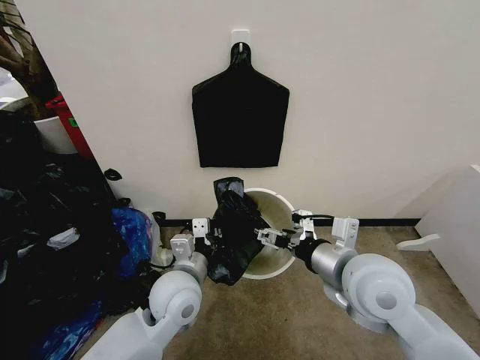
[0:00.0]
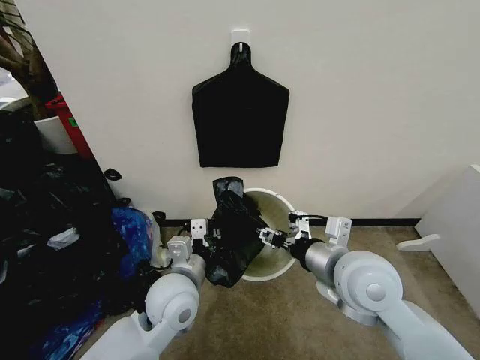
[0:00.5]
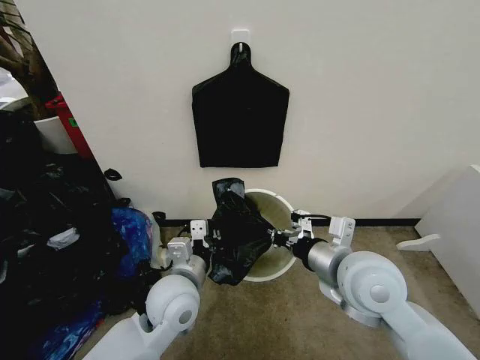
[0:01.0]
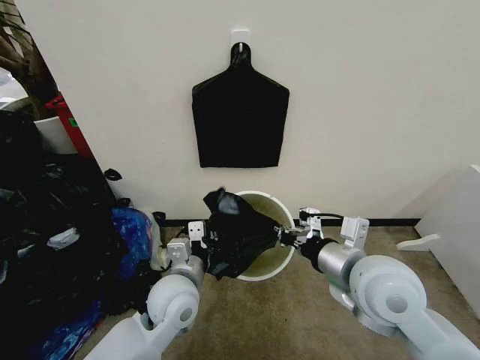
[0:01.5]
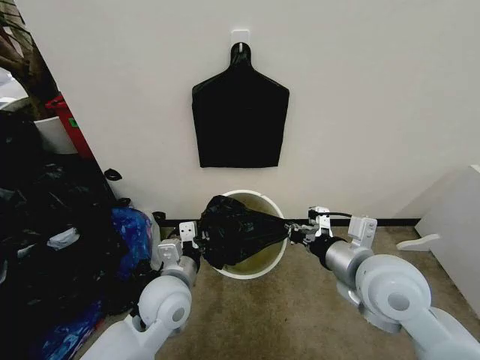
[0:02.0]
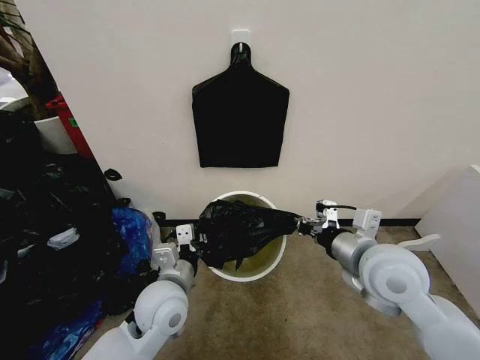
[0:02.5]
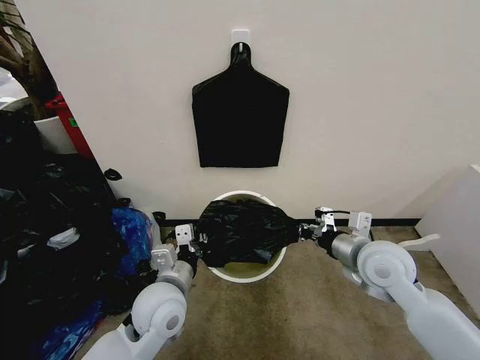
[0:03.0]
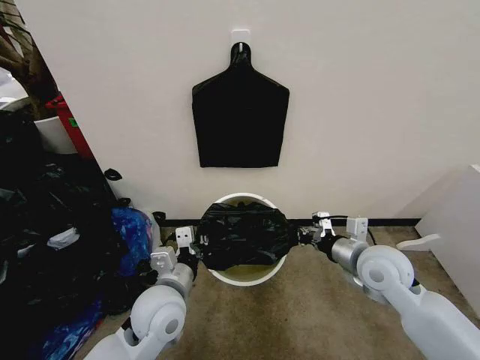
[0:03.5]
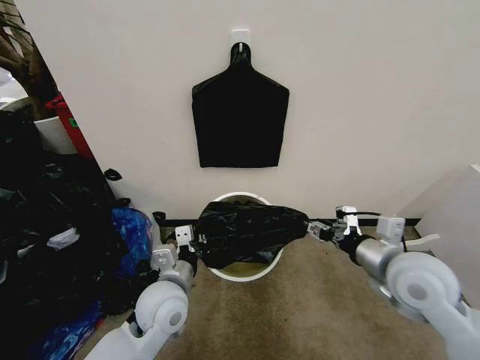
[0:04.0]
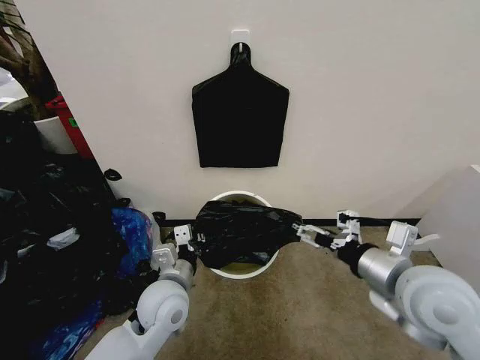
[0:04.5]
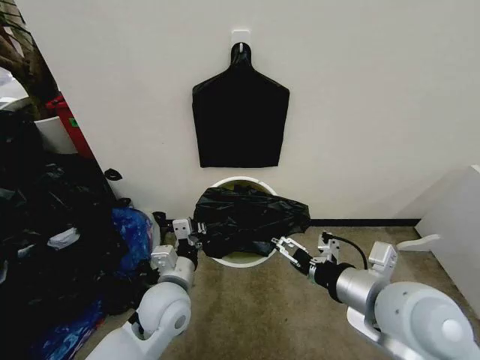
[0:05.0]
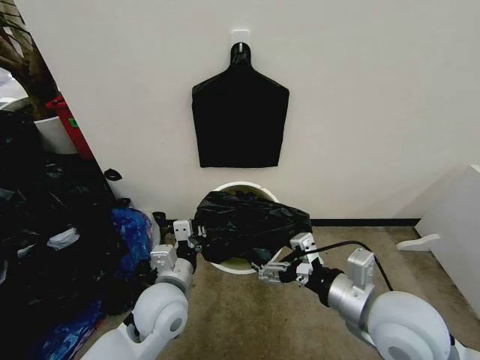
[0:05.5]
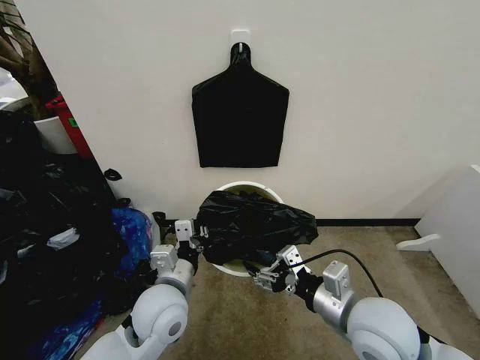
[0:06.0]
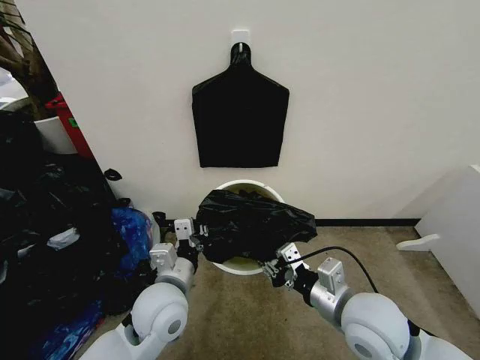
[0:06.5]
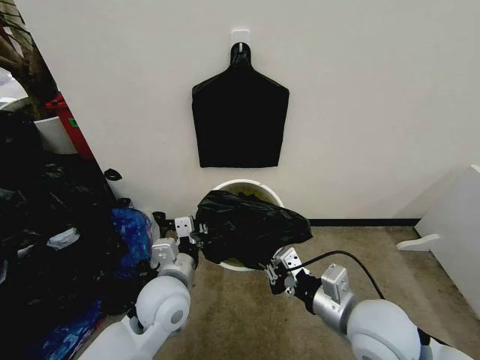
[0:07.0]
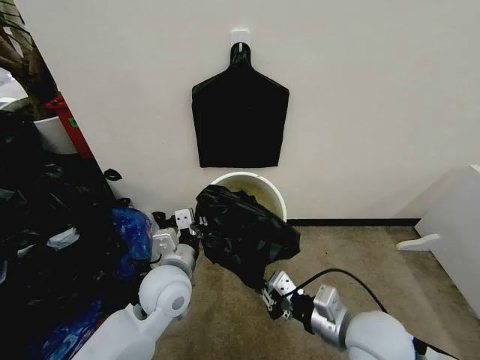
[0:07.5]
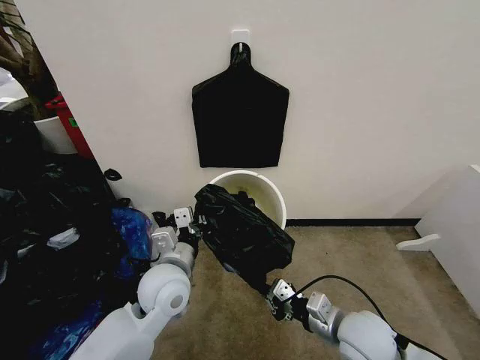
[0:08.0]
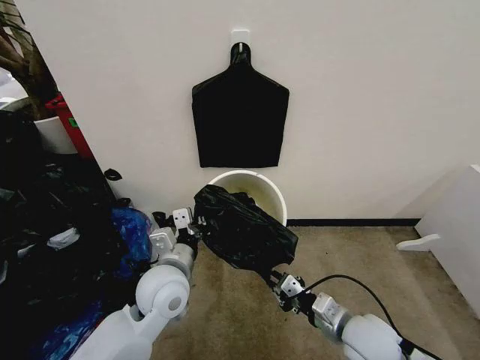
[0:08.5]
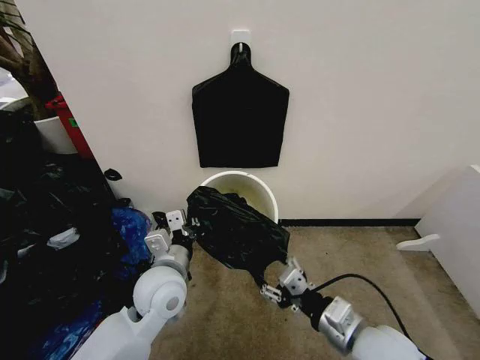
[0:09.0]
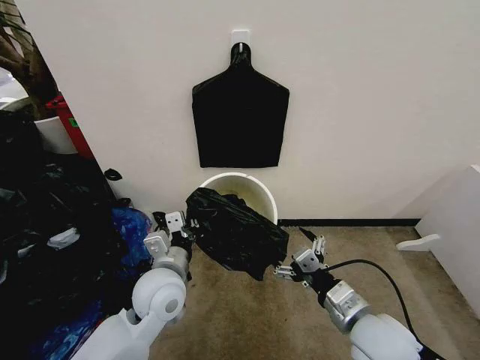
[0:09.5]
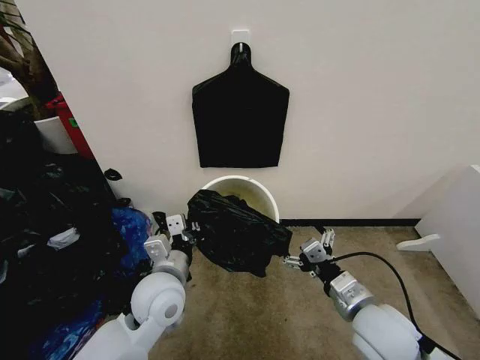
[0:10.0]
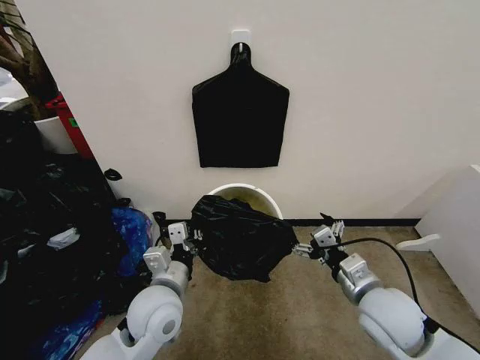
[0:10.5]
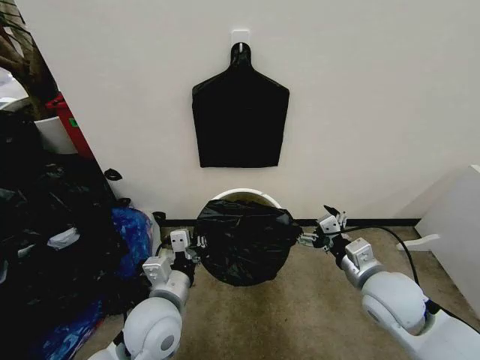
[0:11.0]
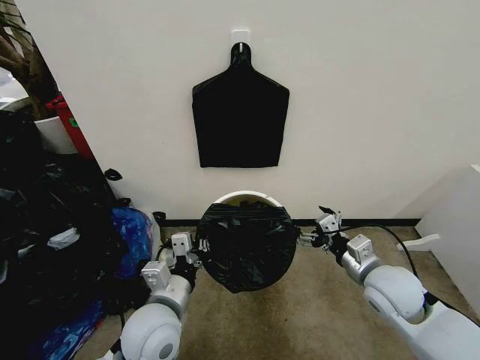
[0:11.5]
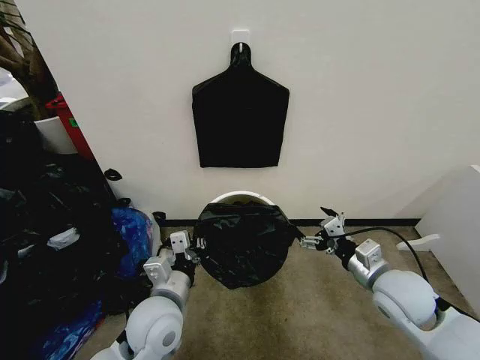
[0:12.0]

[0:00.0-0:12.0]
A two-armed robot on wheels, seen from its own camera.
Task of the whole recording: Place the garbage bag over the trash bin.
0:00.0 to 0:02.0: The right gripper closes.
0:02.0 to 0:04.0: The right gripper moves to the right, approximately 5 cm, goes downward and returns, some 10 cm each way, and opens up.
0:04.0 to 0:06.0: The right gripper is displaced to the left and backward by some 10 cm.
0:06.0 to 0:08.0: The right gripper is displaced downward by roughly 10 cm, and closes.
0:08.0 to 0:10.0: The right gripper opens up.
0:10.0 to 0:12.0: The right gripper moves to the right and forward, about 10 cm.

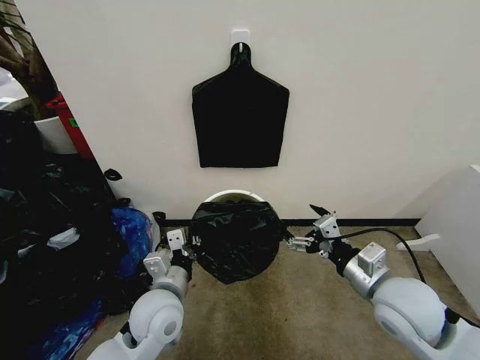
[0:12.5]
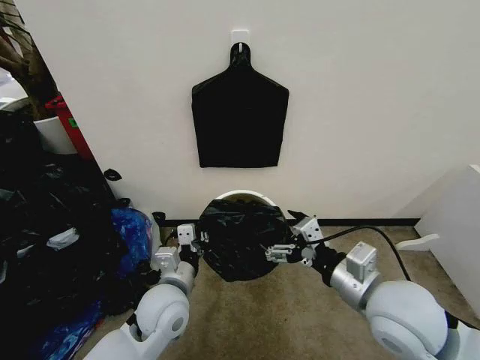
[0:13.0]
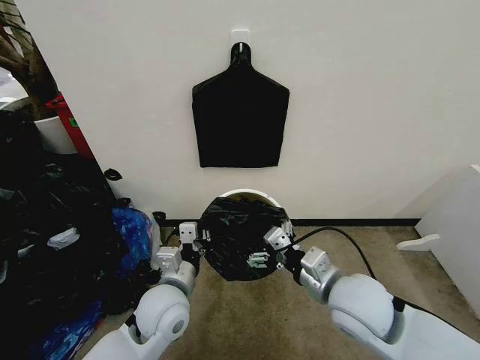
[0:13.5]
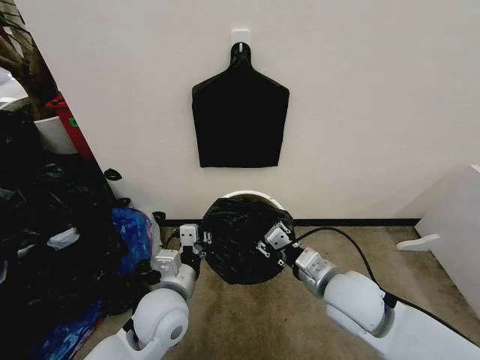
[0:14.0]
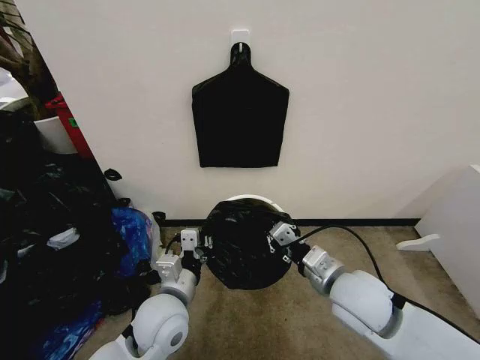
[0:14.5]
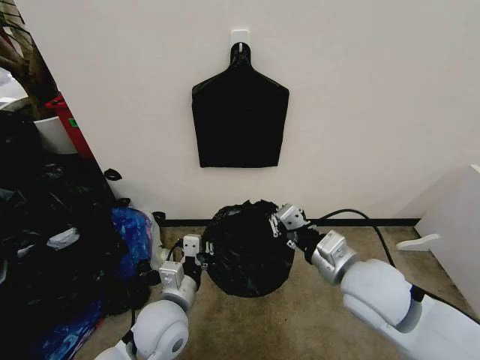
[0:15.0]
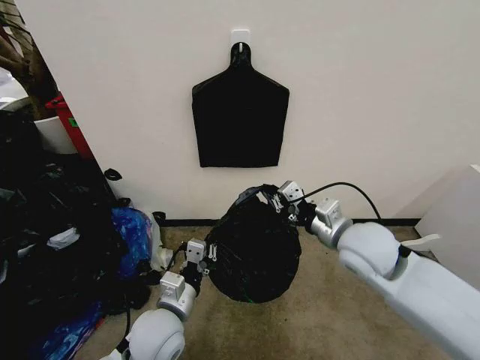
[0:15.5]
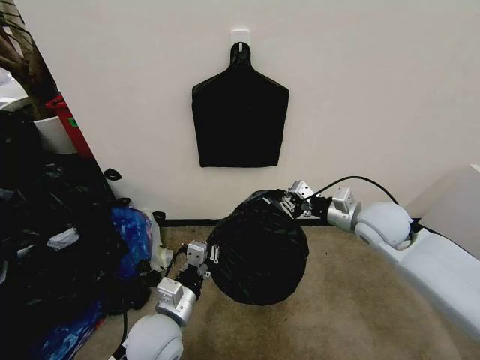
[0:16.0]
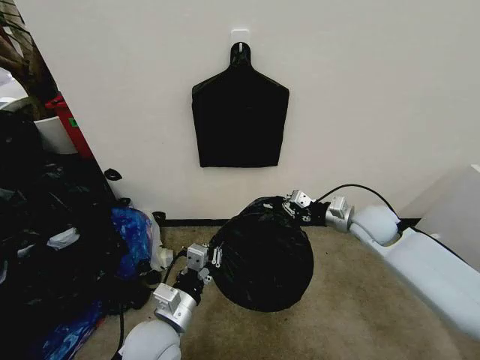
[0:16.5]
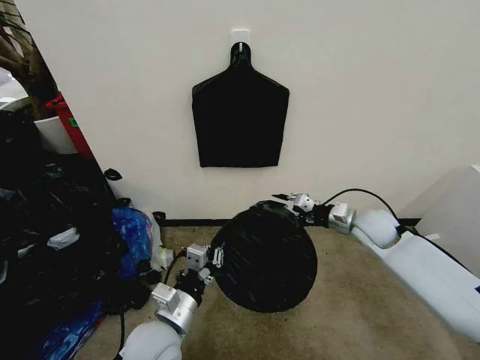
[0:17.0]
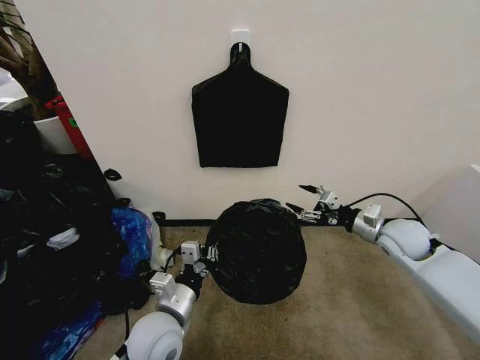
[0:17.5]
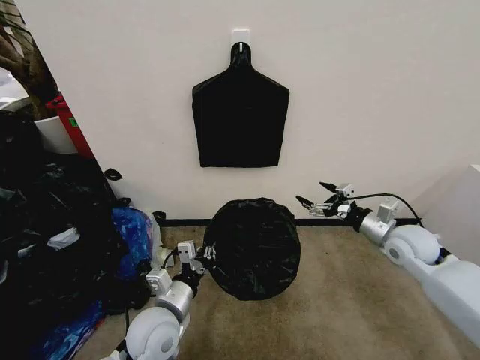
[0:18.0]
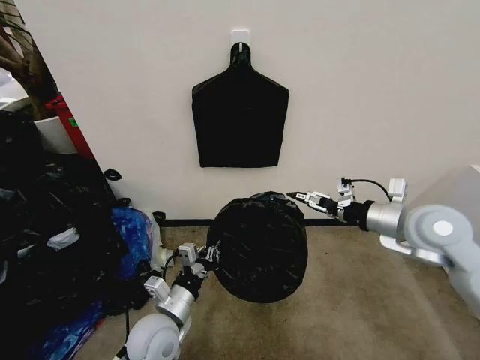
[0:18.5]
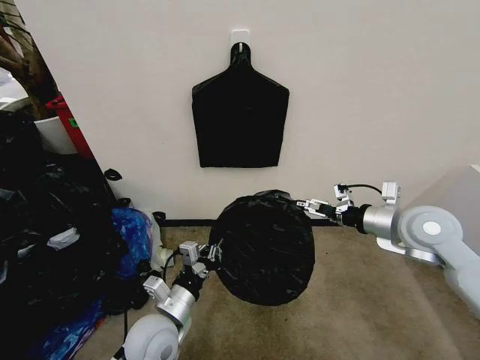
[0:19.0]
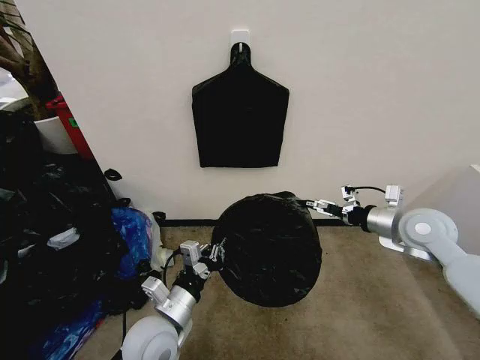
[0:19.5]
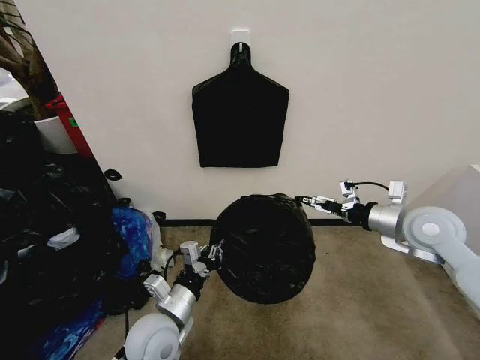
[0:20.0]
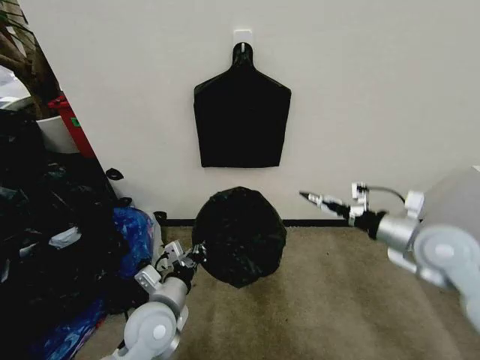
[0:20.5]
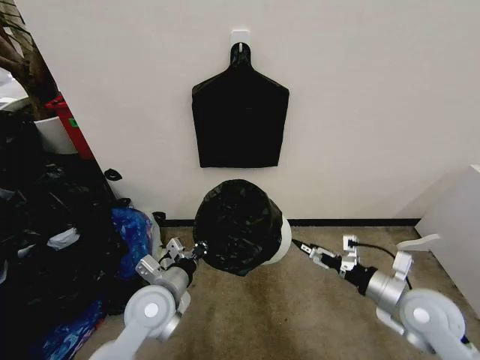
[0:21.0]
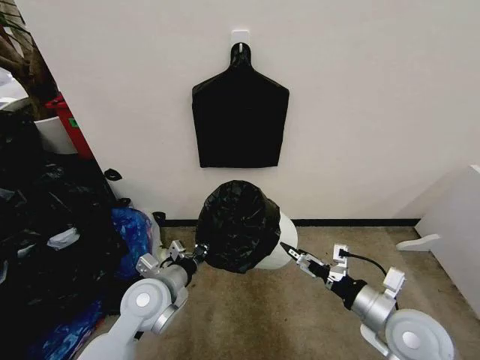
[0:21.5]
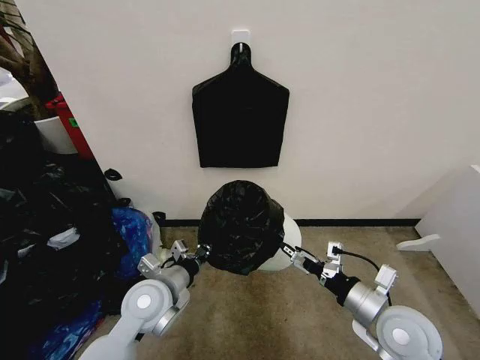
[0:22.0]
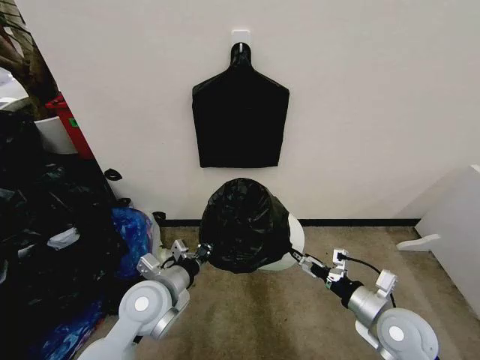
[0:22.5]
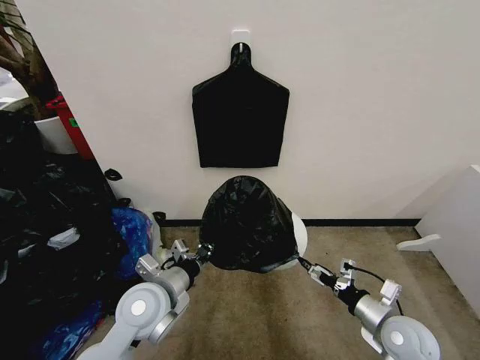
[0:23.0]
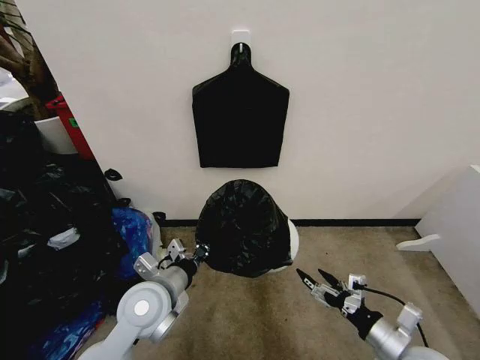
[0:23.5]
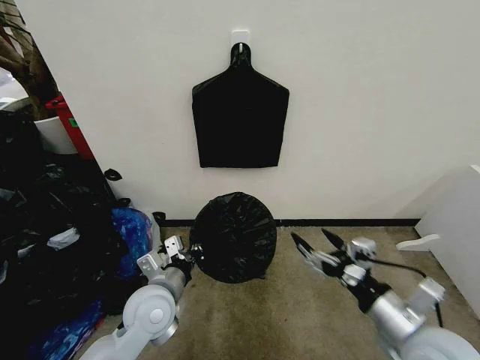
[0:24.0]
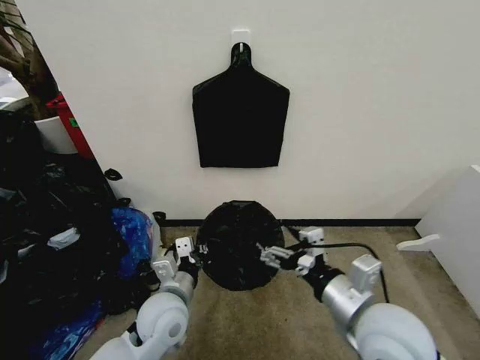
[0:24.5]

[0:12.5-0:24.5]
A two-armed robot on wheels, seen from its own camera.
Task of the whole recording: Place the garbage bag over the trash bin.
0:12.5 to 0:14.5: The right gripper shifts about 5 cm to the left, and closes its fingers.
0:14.5 to 0:16.5: The right gripper shifts roughly 20 cm forward and to the right.
0:16.5 to 0:18.5: The right gripper moves upward and backward, about 15 cm, and opens up.
0:20.5 to 0:22.5: The right gripper goes some 15 cm downward and backward, while the left gripper ends up about 5 cm from where it was.
0:22.5 to 0:24.5: The right gripper moves upward and to the left, approximately 15 cm.

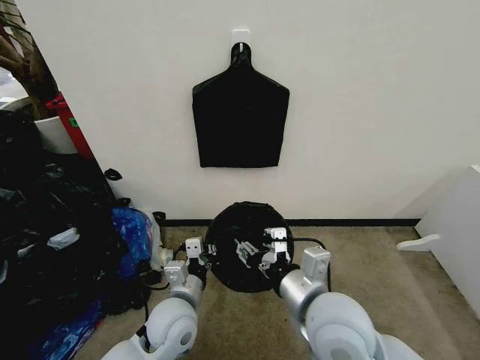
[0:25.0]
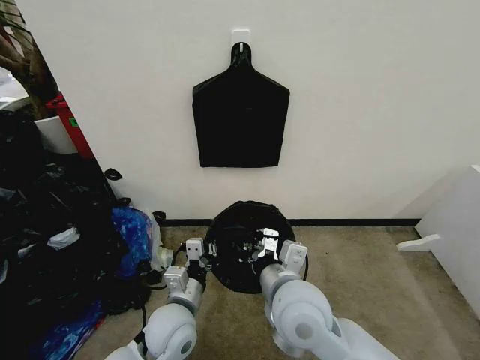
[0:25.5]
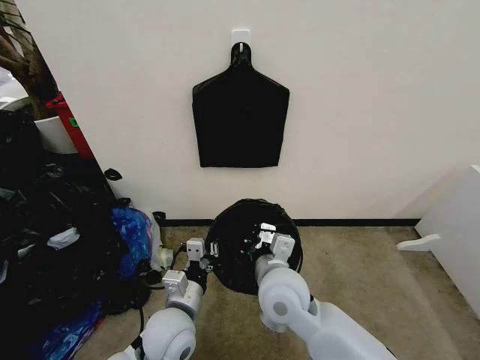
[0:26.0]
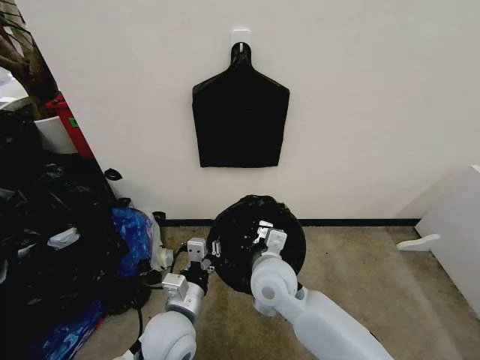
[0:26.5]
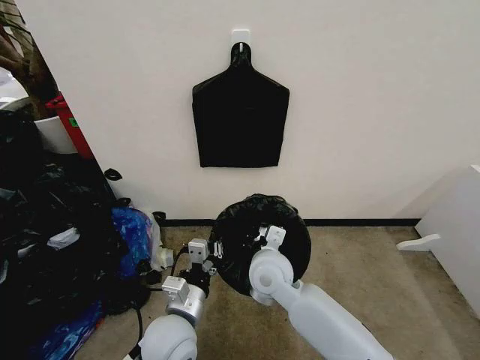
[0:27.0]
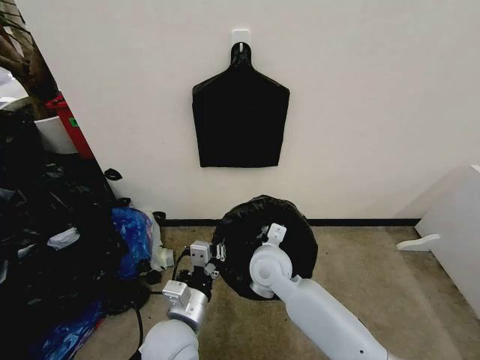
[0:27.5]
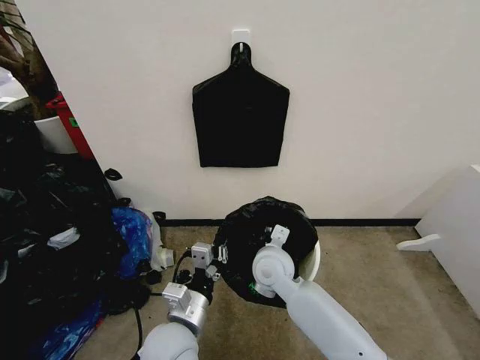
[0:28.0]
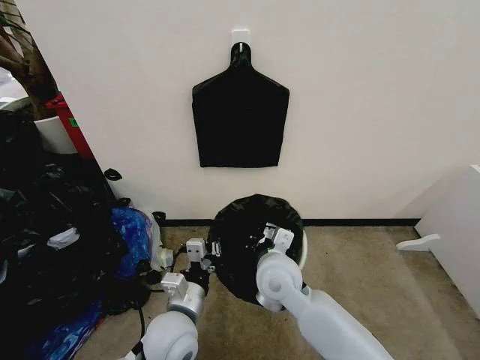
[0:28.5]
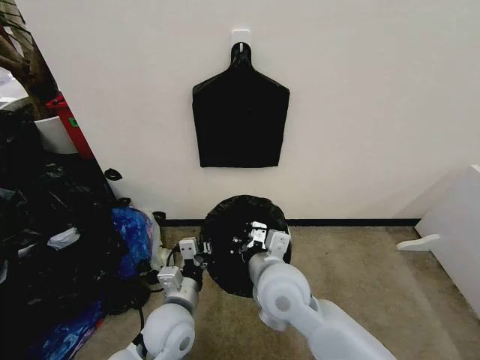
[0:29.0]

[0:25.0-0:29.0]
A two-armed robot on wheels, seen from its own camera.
Task of the whole recording: Place the garbage bag over the trash bin.
0:25.0 to 0:27.0: The right gripper is displaced forward, downward and to the left by approximately 15 cm, and closes its fingers.
0:27.0 to 0:29.0: The right gripper goes roughly 5 cm backward.
